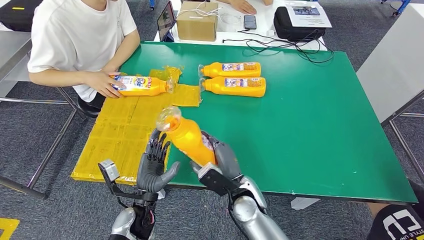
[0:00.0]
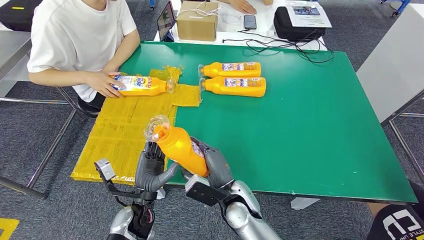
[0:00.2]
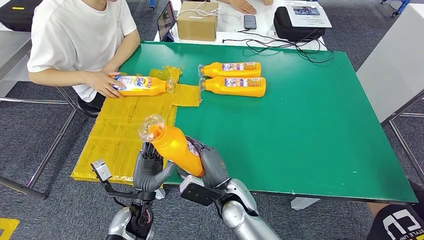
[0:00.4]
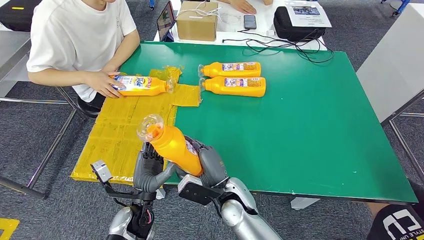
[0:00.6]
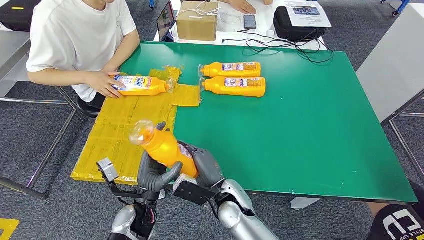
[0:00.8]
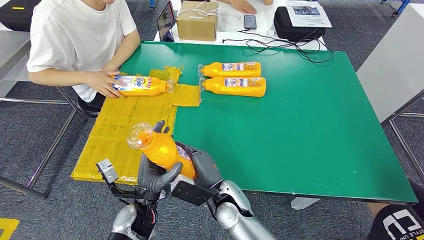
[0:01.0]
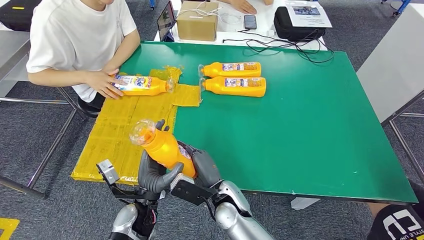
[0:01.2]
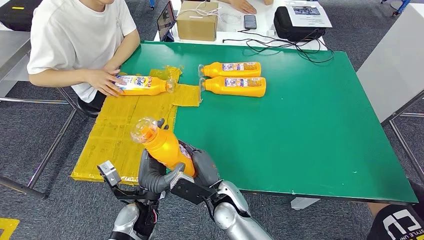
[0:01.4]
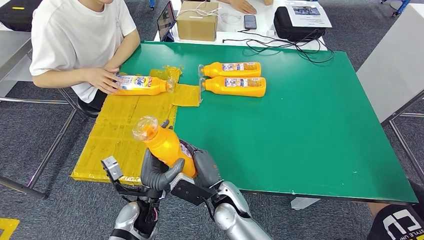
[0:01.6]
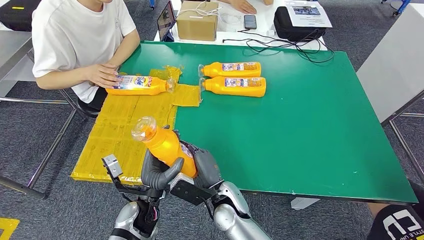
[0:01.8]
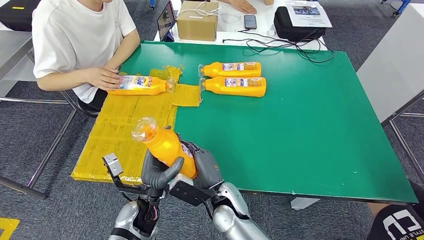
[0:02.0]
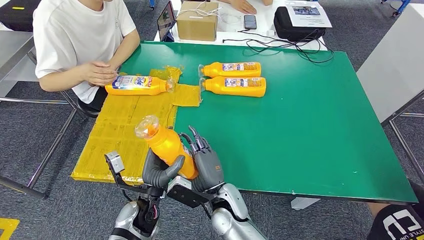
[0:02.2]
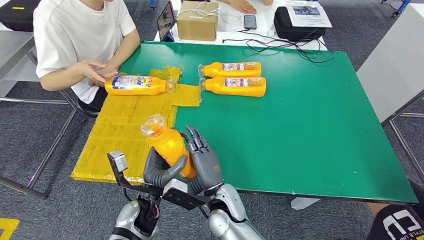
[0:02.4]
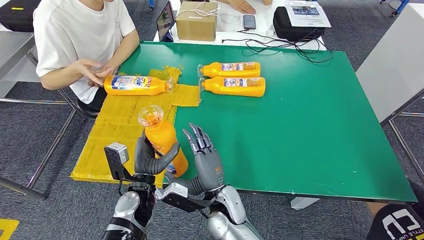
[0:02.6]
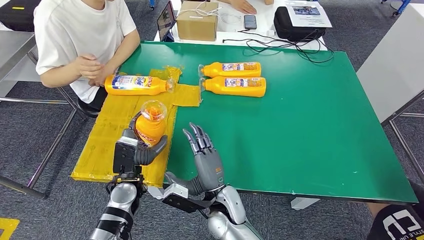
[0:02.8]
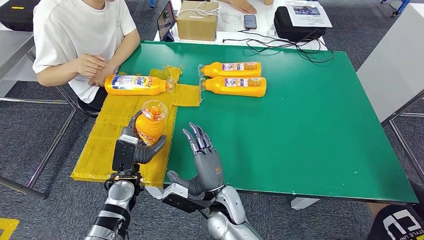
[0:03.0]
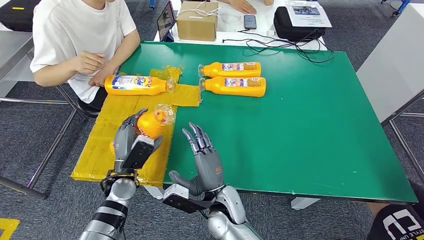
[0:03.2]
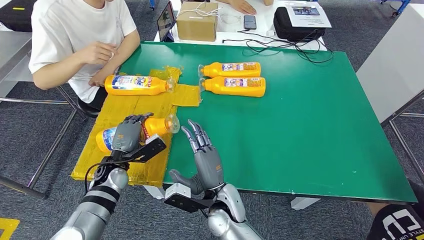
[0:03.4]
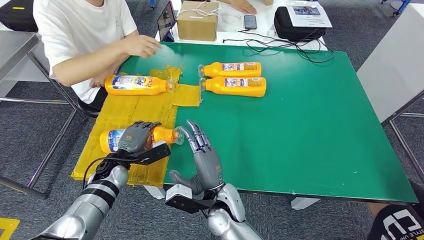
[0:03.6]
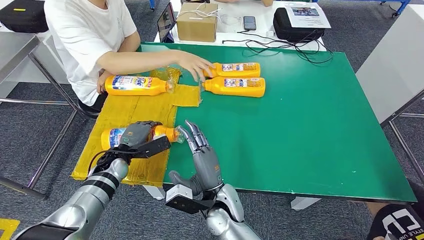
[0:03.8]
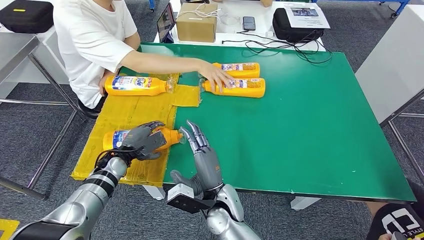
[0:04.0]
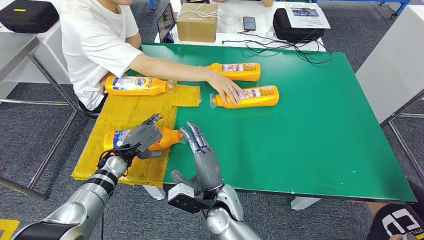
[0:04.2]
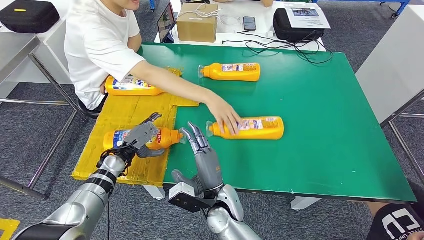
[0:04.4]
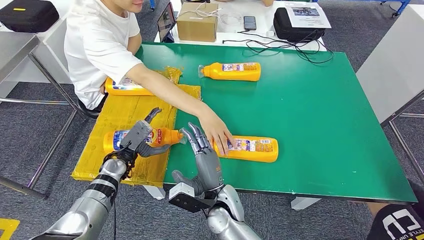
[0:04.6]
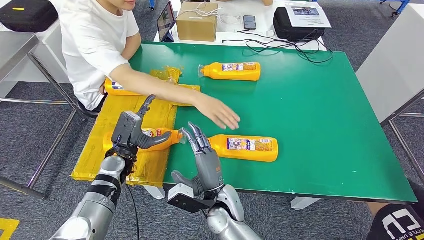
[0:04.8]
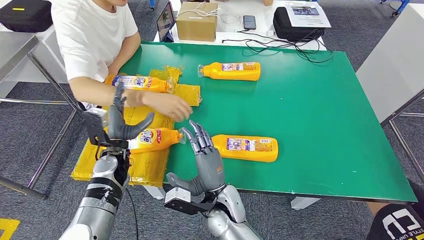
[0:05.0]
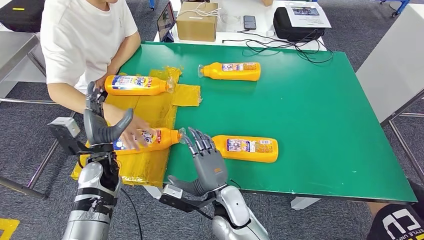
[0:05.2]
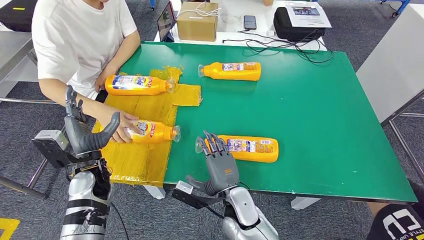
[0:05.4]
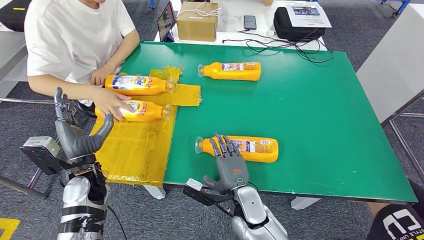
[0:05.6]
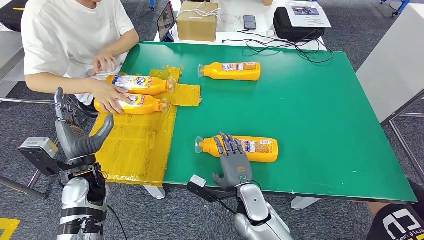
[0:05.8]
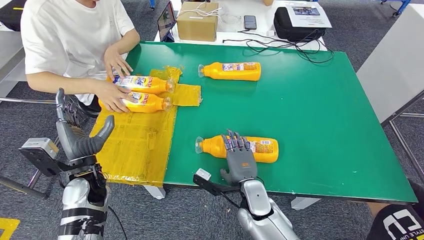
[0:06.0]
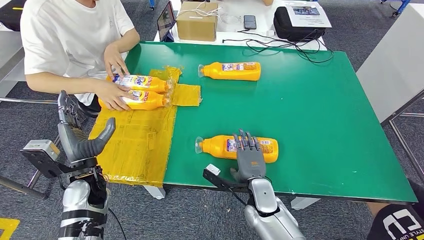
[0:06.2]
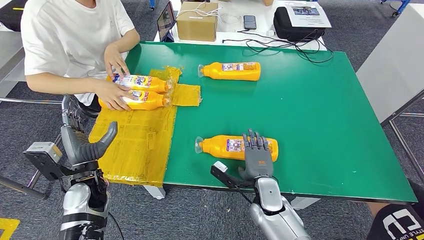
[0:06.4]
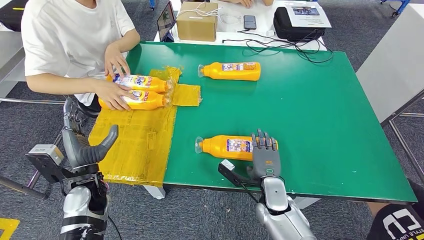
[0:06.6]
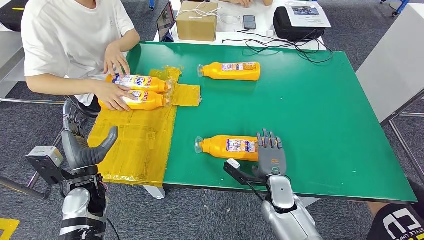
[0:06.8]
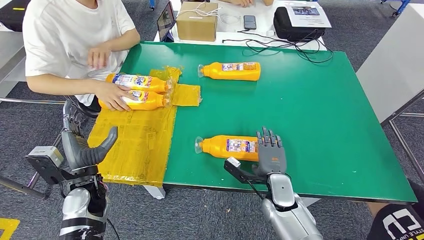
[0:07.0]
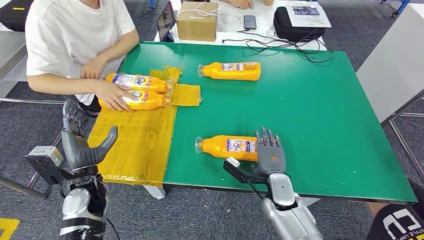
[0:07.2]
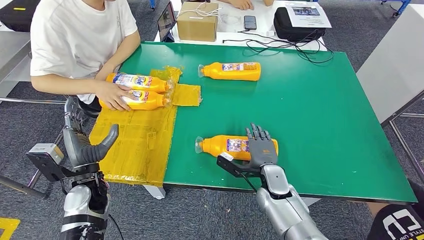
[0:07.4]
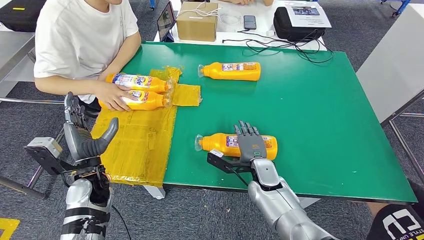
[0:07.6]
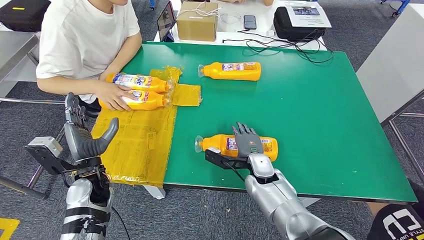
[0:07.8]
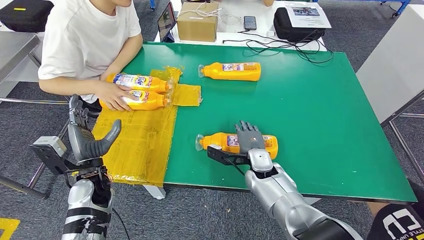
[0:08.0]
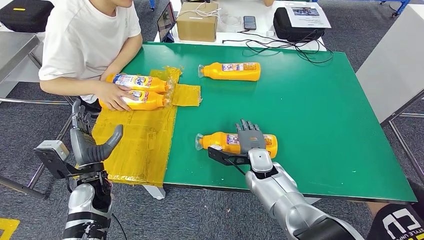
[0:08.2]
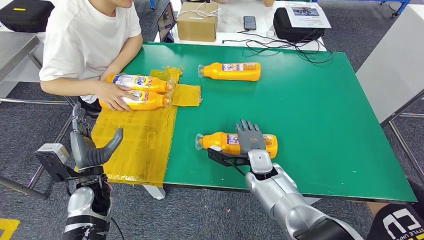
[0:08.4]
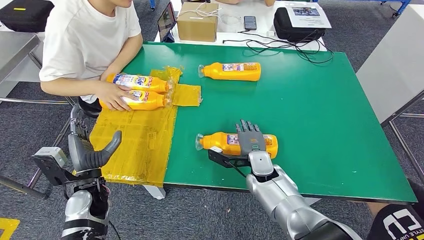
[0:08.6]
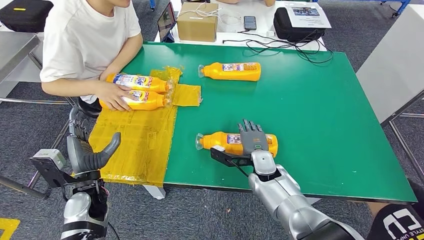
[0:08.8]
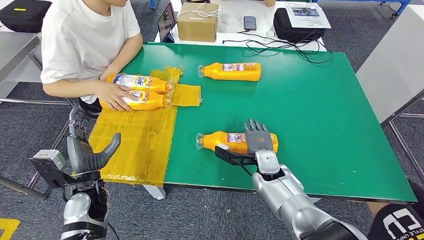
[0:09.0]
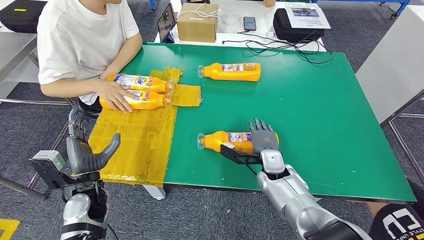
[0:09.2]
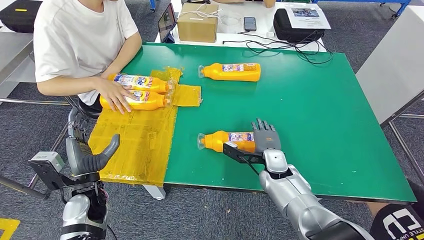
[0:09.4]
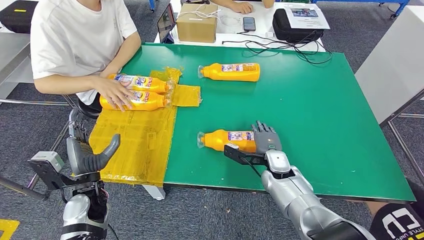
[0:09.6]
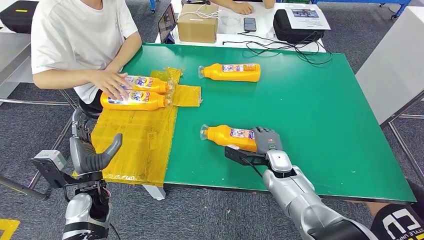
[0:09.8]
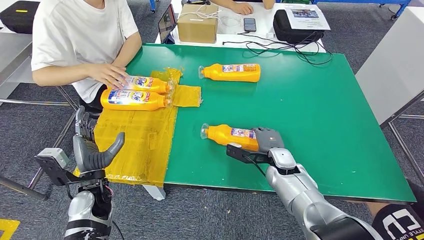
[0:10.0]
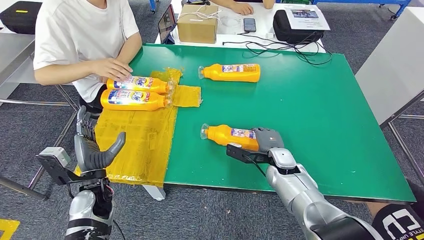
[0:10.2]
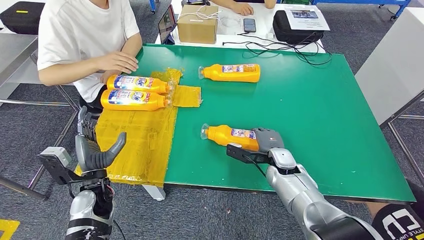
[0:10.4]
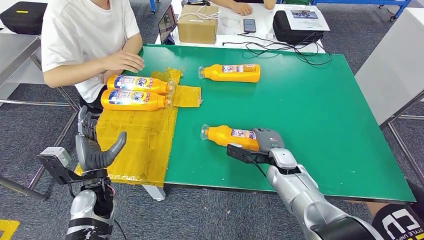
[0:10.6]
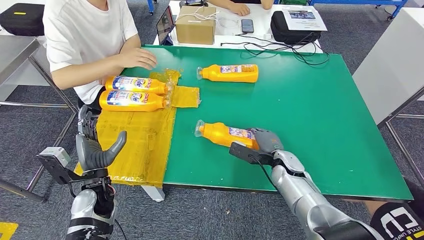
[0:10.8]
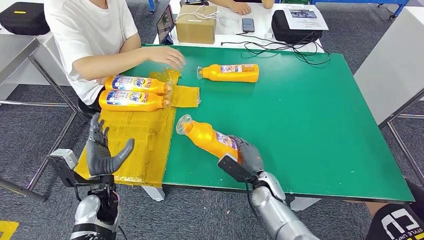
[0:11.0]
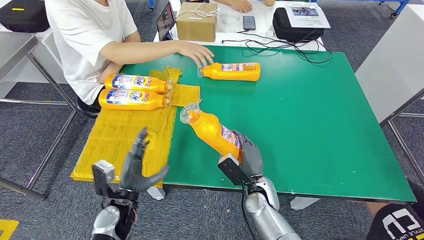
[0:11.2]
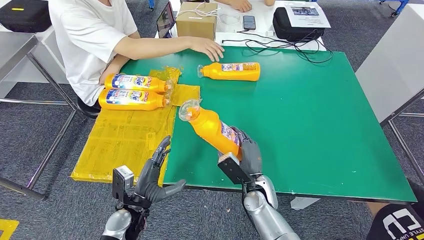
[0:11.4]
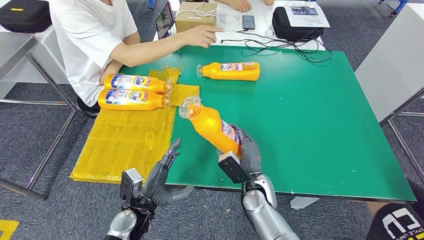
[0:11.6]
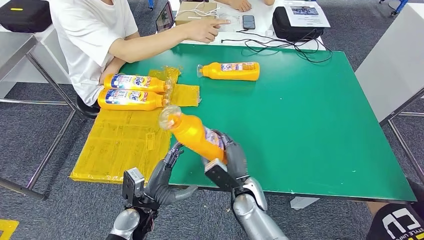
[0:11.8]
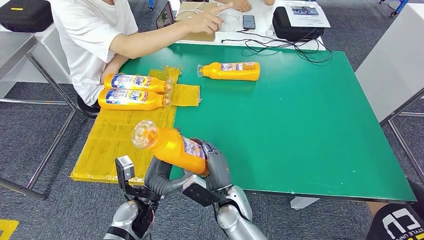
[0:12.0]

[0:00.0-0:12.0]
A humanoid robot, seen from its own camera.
Step, 0:00.2 to 0:04.8: Flip the fast-moving consumer goods bottle to the front side.
Step, 0:05.0 to 0:11.8: Pick up the fast-moving consumer goods bottle from the table.
0:00.0 to 0:01.6: The right hand travels to the left by roughly 5 cm.
0:01.6 to 0:03.0: The left hand is displaced to the left and forward by about 10 cm.
0:06.0 to 0:07.6: The right hand moves forward, roughly 5 cm.
0:07.6 to 0:09.0: There are only small adjustments of the hands.

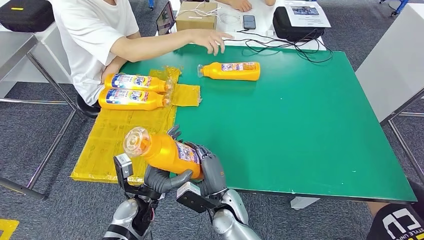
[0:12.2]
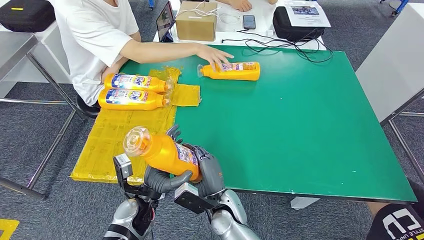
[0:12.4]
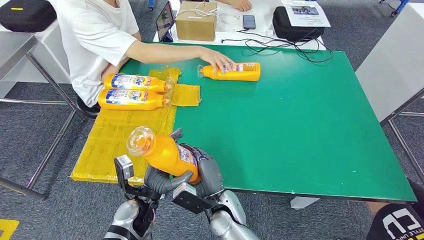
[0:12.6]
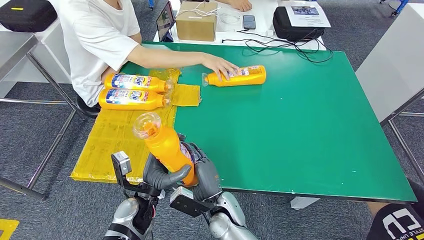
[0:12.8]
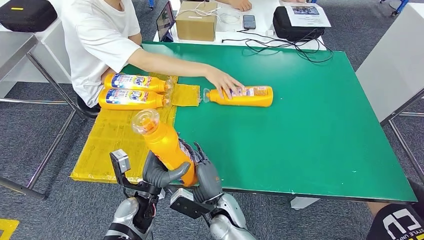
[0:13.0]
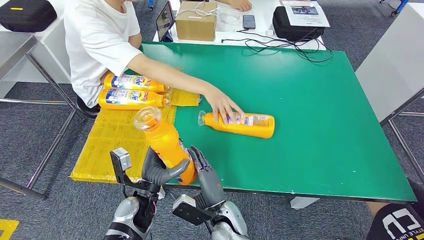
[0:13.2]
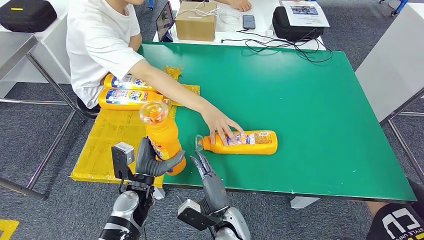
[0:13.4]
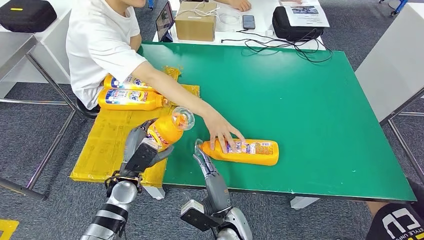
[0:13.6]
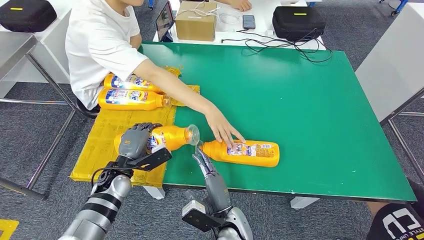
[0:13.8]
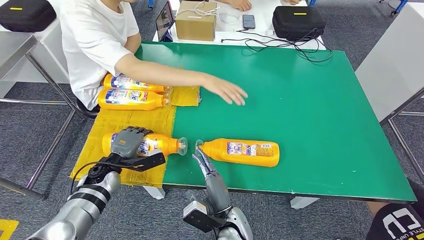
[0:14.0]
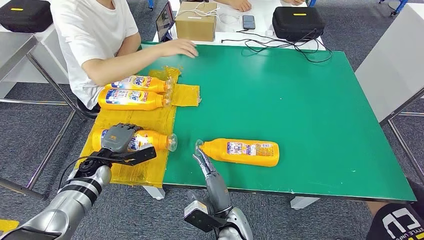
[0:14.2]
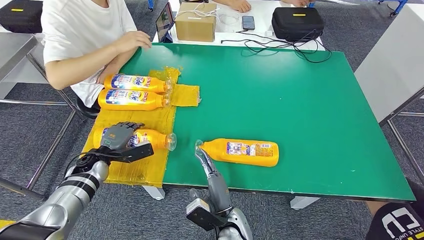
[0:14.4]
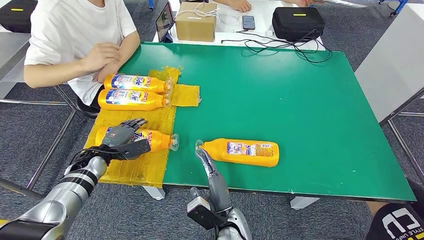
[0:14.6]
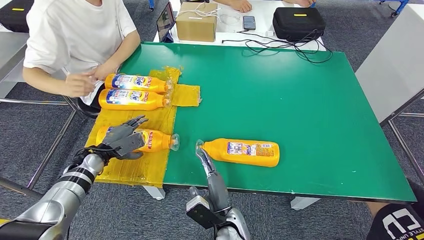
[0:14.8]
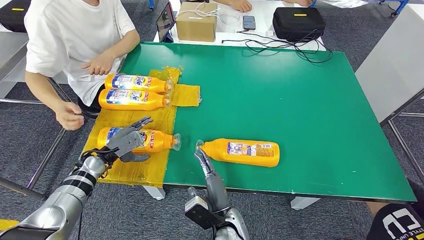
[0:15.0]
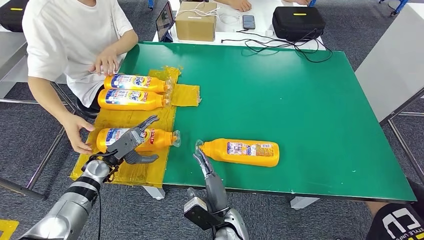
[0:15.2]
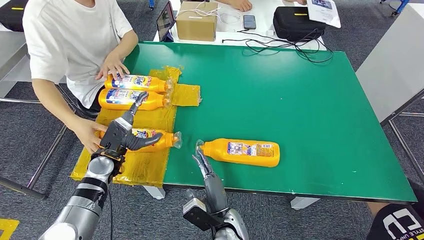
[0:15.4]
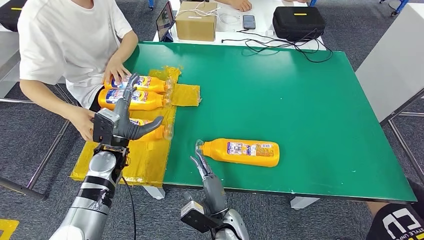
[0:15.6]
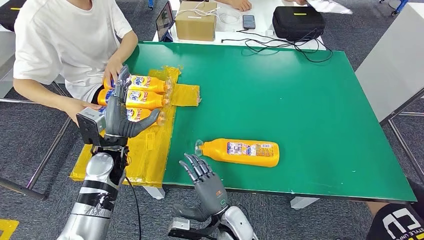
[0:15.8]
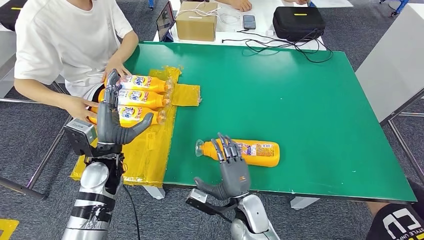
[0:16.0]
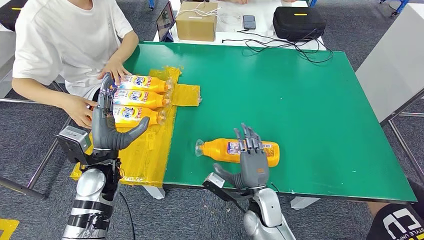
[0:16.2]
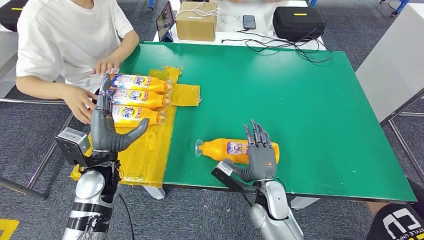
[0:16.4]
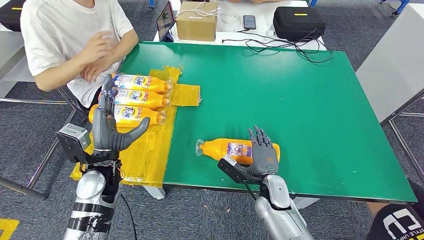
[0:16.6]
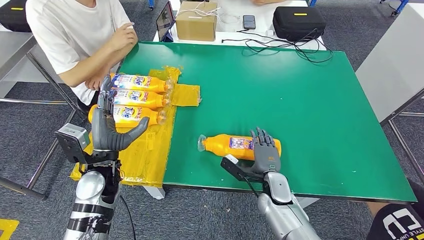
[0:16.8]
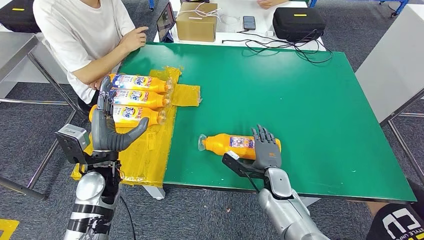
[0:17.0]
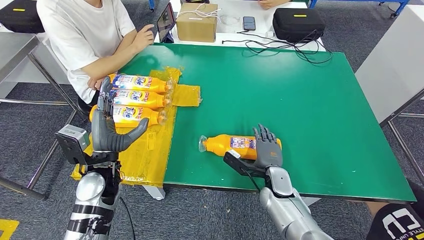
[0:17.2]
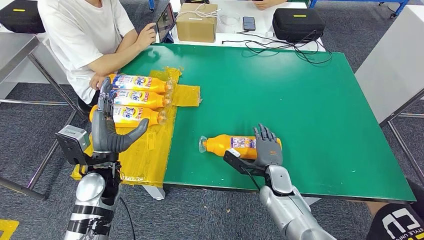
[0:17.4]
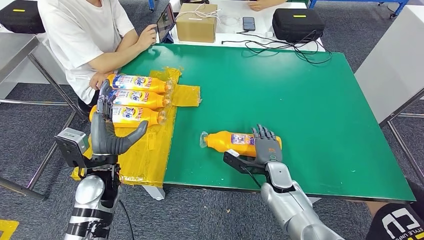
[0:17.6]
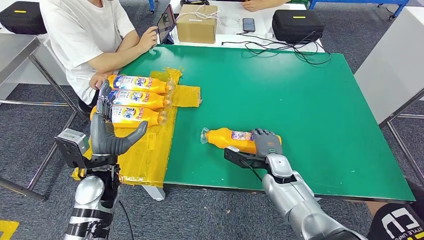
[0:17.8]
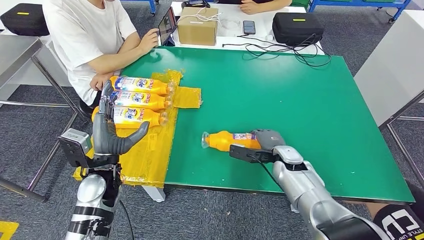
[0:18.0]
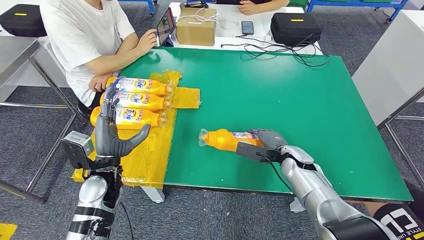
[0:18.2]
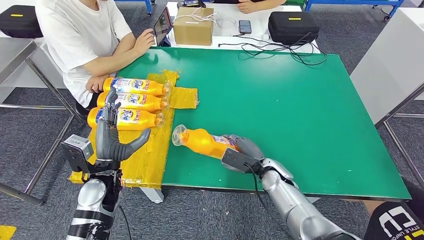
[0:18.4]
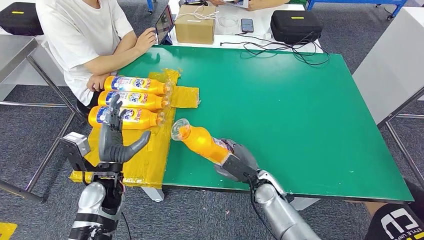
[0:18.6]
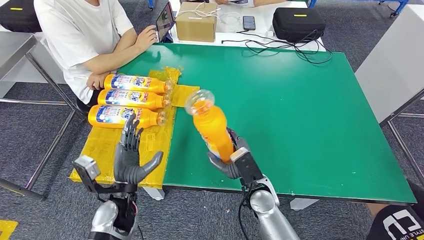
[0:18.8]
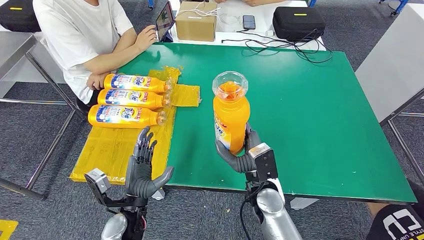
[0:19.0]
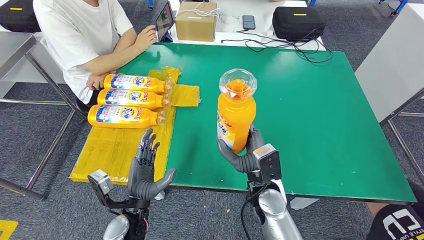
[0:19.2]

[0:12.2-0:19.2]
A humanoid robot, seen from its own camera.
Step, 0:12.2 to 0:16.4: Flip the fast-moving consumer goods bottle to the front side.
